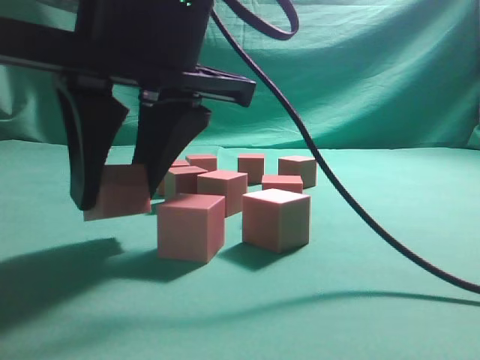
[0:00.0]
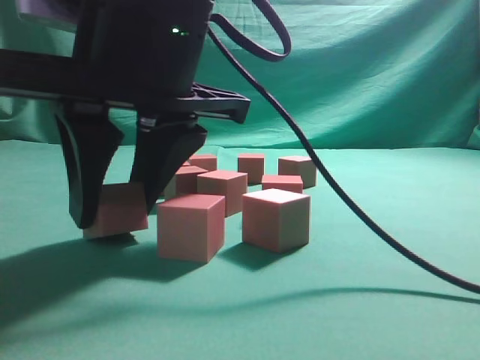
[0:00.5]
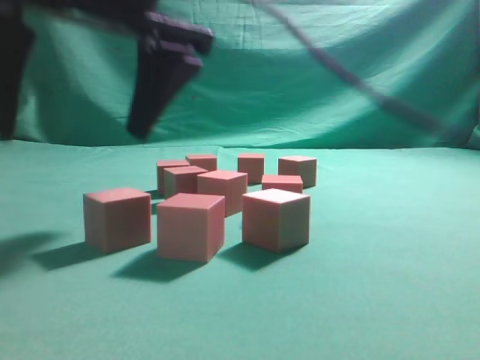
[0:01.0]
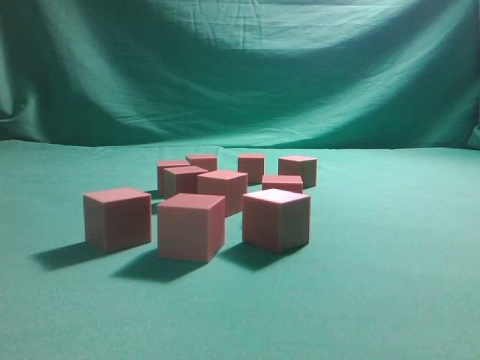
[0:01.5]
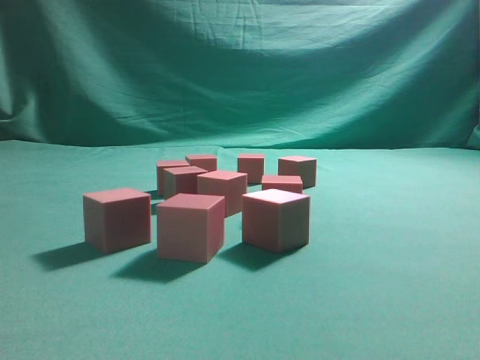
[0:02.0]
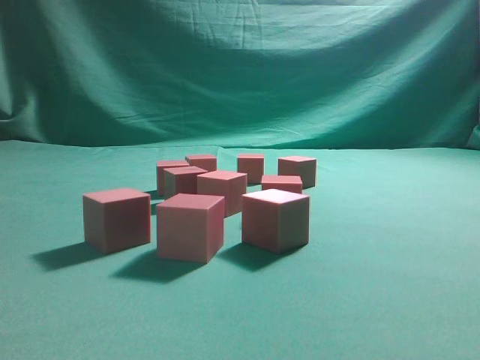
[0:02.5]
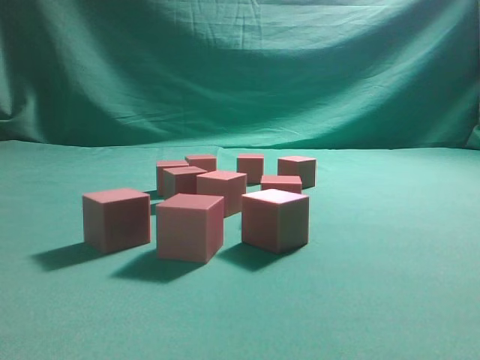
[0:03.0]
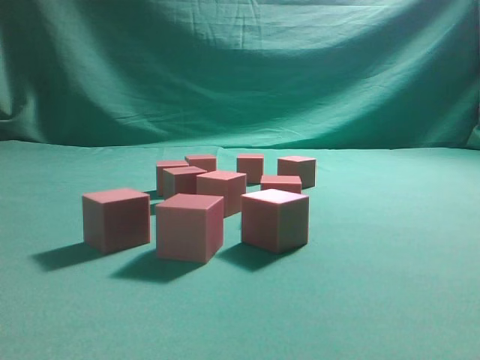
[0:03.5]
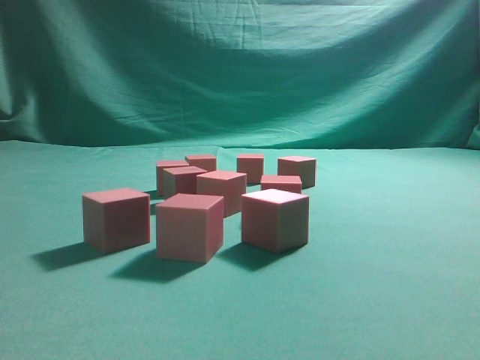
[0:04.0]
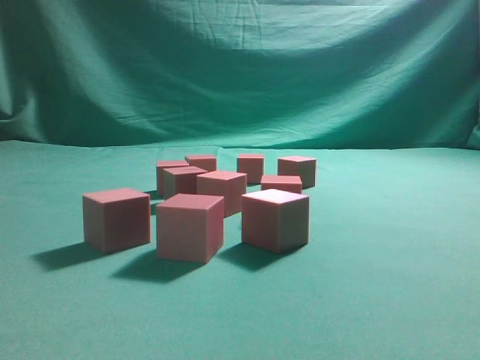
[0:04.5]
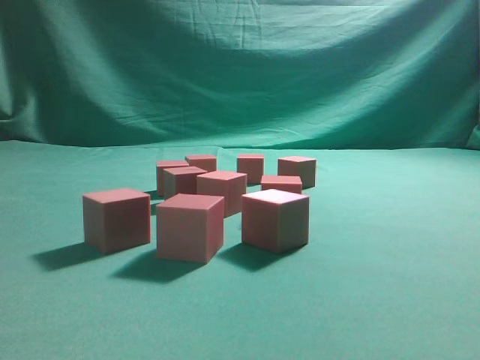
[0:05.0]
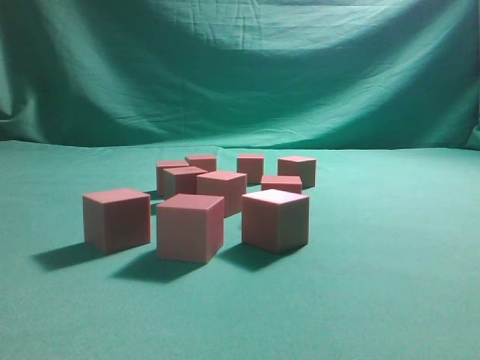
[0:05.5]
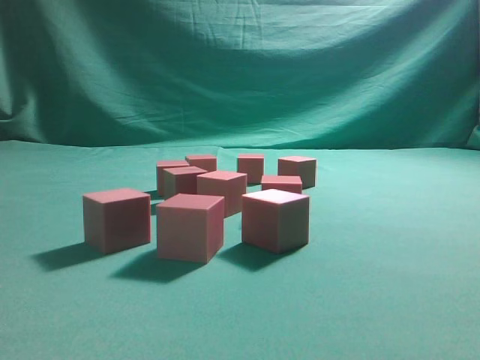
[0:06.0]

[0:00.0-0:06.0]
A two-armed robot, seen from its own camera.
Task of the whole recording: pick up the multiple cubes in two columns one by one and place them in another position on the table.
0:00.0 to 0:02.0: The right gripper travels upward by some 35 cm, and closes.
